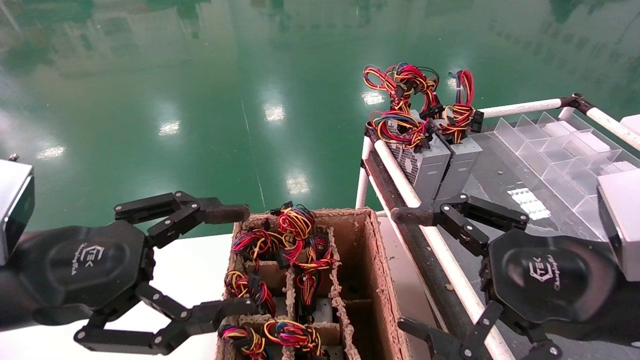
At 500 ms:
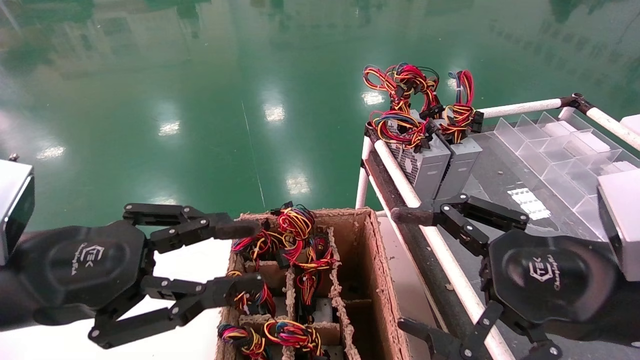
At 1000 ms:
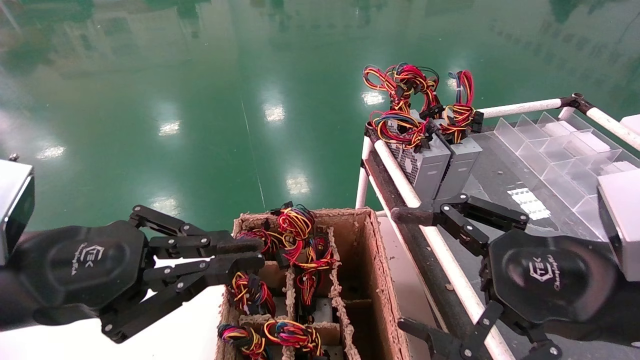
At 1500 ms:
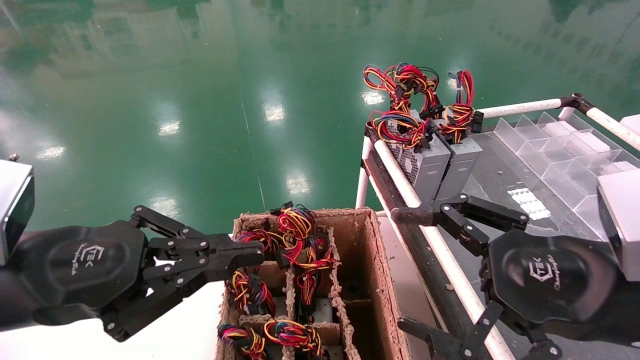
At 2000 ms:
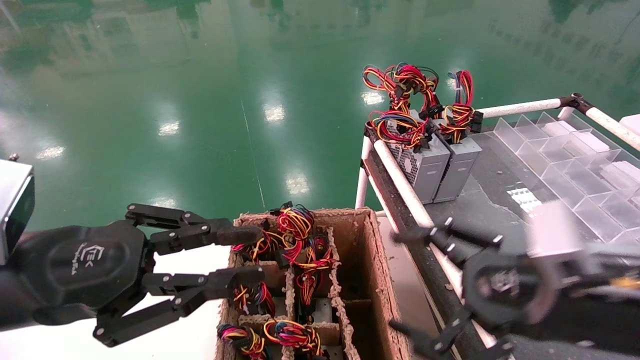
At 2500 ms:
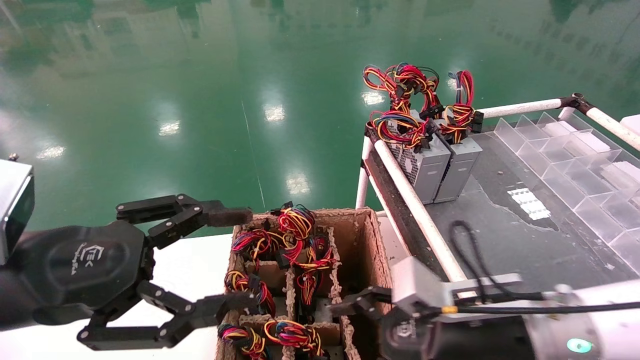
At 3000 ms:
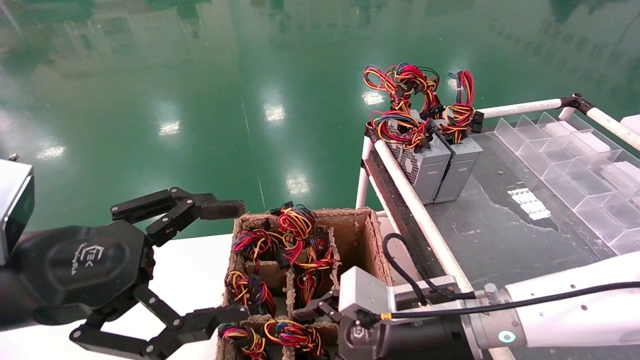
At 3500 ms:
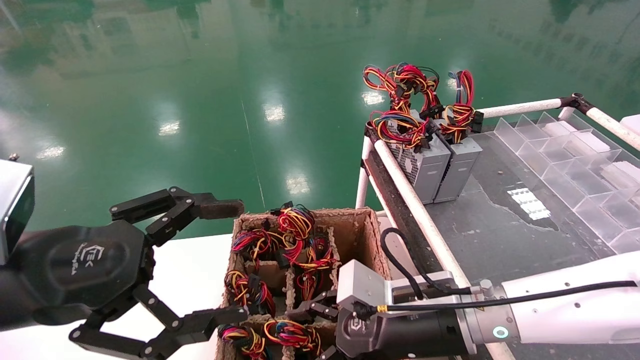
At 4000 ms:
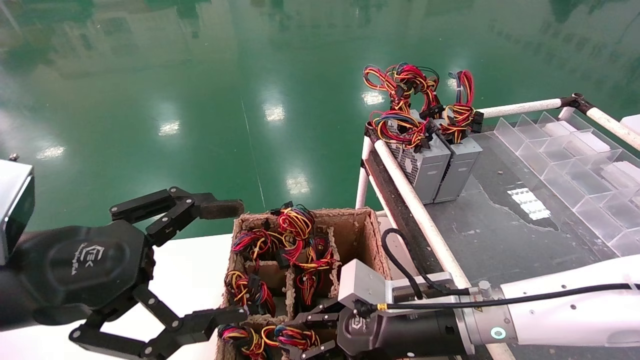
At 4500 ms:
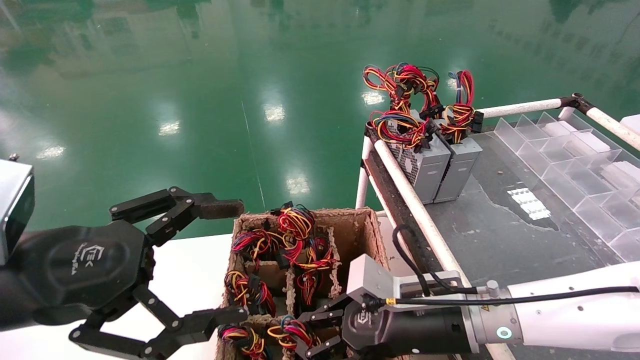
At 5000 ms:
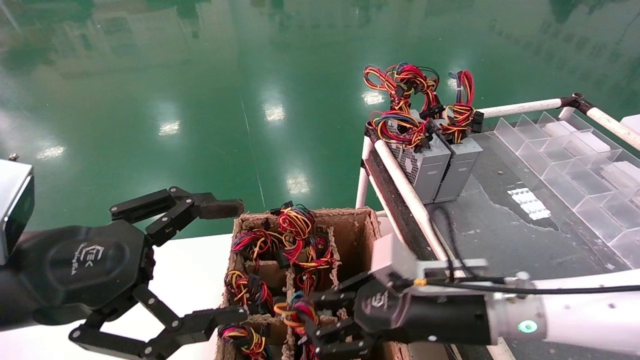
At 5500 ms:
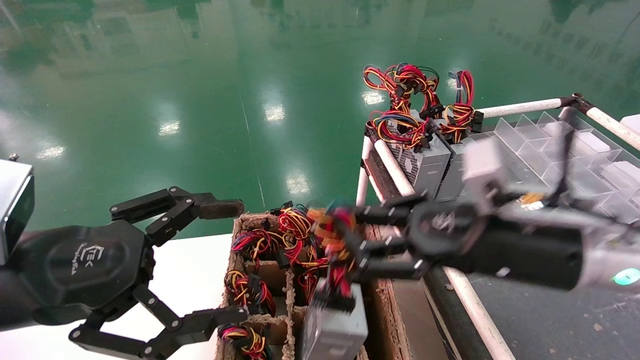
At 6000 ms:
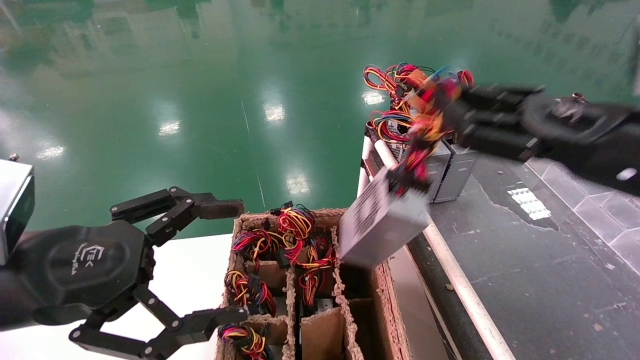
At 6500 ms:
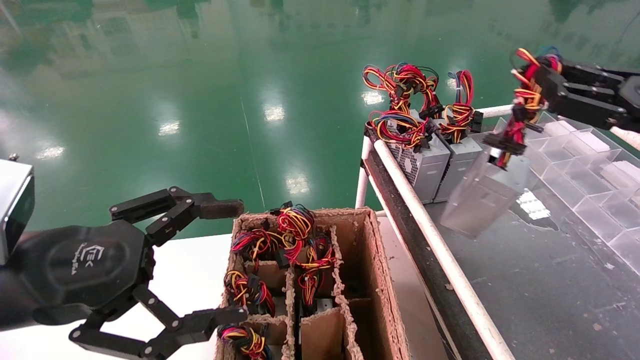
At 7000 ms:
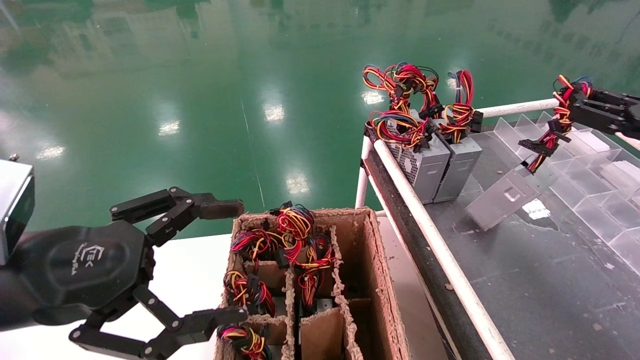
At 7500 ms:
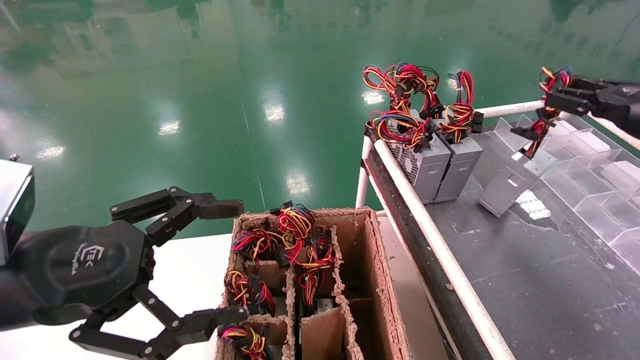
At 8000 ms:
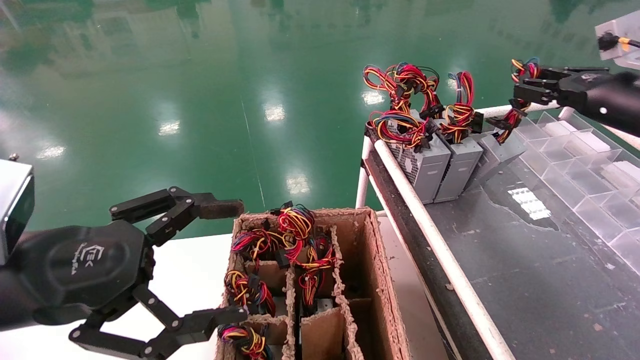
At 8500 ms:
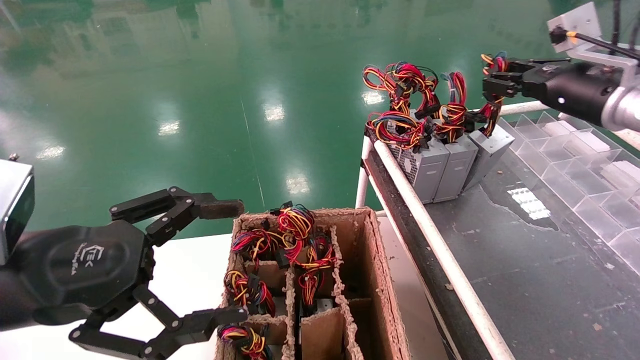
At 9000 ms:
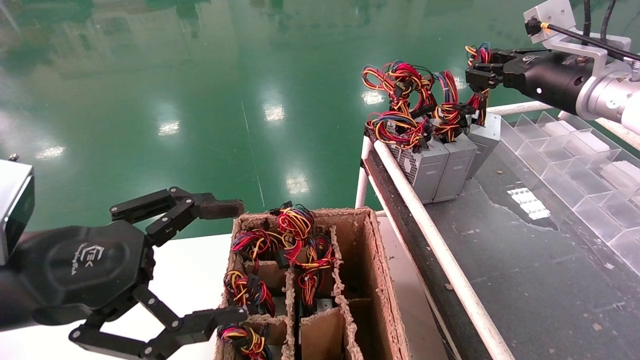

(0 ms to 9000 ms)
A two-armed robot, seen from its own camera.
Step, 1500 ms - 4000 ms: Grab and lift the power supply from the large box.
0 ms - 2000 ms: The right gripper shifts by about 5 cm. The left gripper closes its fingers.
2000 ms - 4500 ms: The right gripper travels to the left, downward and forward by about 15 cm, and closes its fingers; the left gripper opens its fingers.
4500 ms - 7000 ms: The right gripper goes some 35 cm to the right and upward.
7000 ms - 9000 ms: The right gripper moves to the left, forward and upward, about 15 cm.

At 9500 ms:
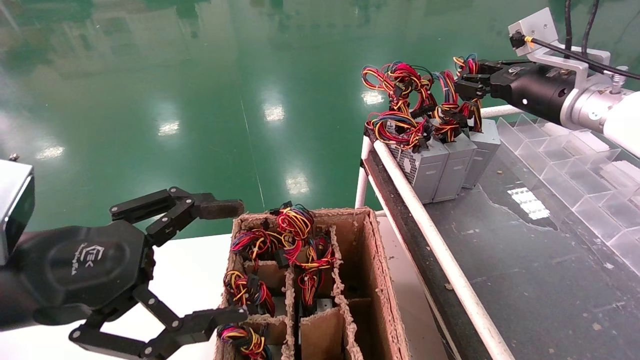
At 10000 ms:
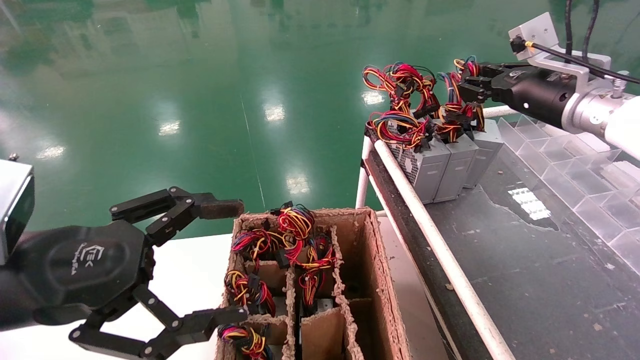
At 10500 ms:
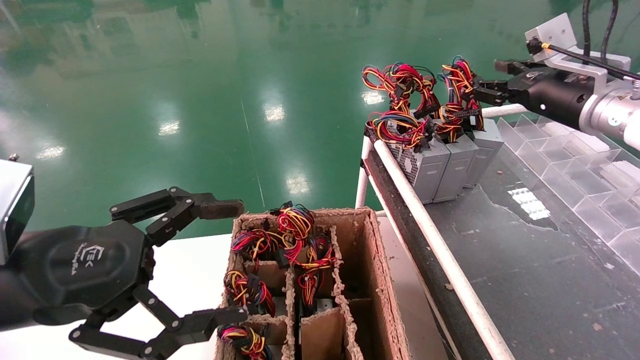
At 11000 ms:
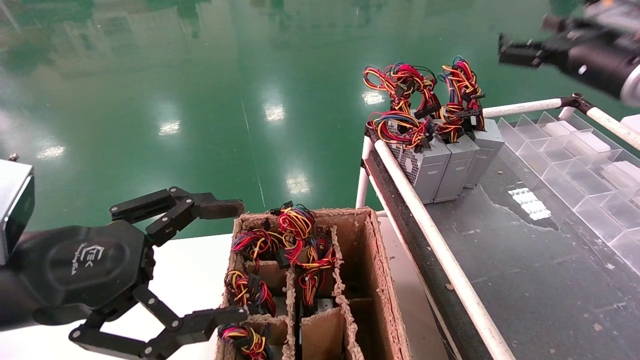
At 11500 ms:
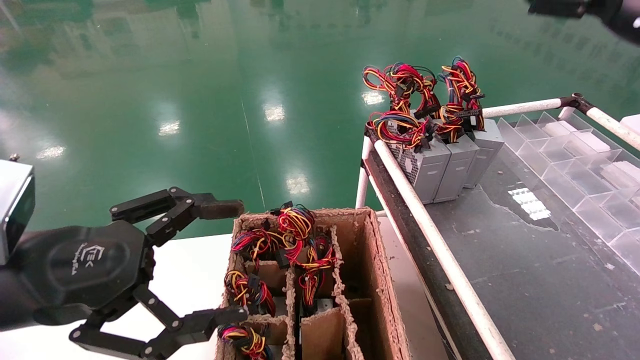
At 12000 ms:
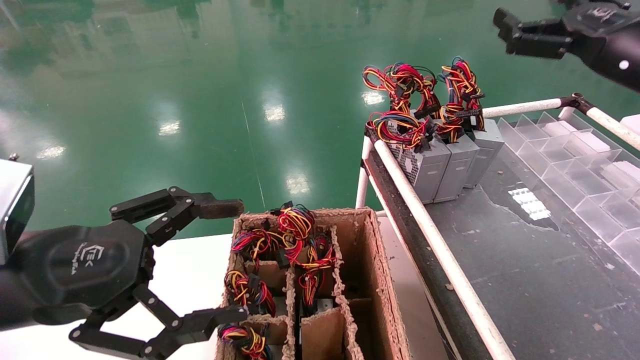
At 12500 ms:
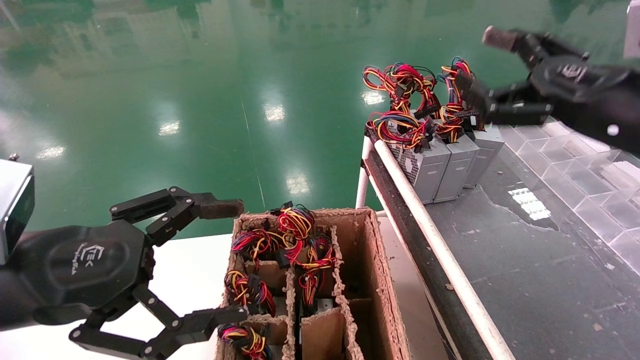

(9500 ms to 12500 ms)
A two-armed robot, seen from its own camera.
9500 ms - 11000 ms: The right gripper heads to the right, covering approximately 5 cm, and opens up.
11000 ms - 12500 ms: The right gripper heads backward, downward and to the left, covering roughly 15 cm.

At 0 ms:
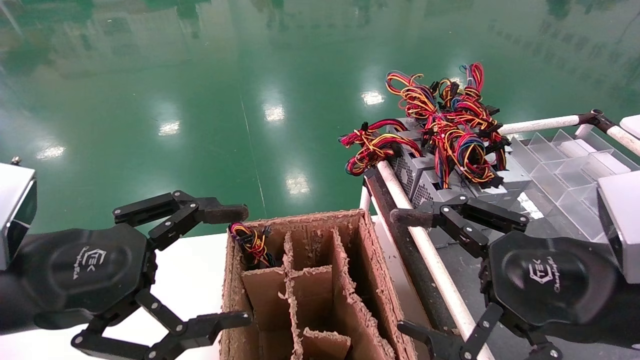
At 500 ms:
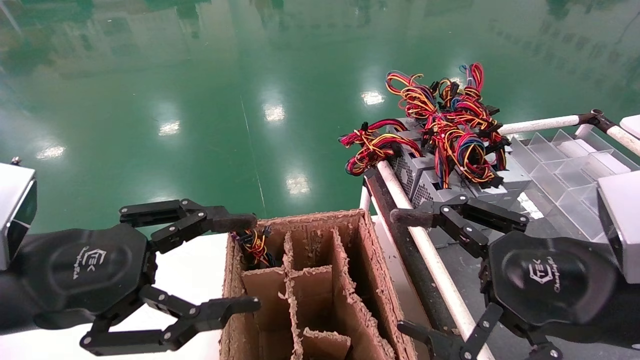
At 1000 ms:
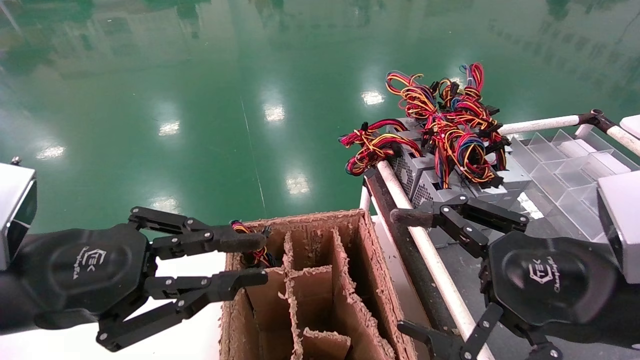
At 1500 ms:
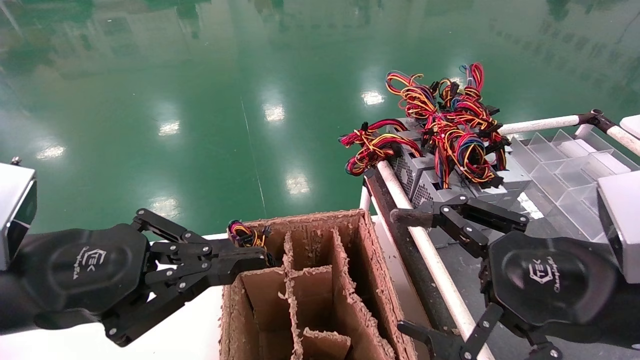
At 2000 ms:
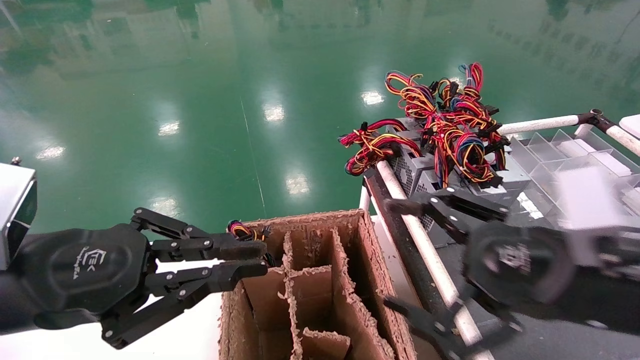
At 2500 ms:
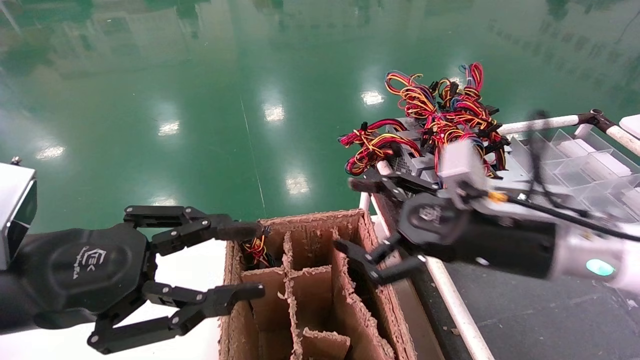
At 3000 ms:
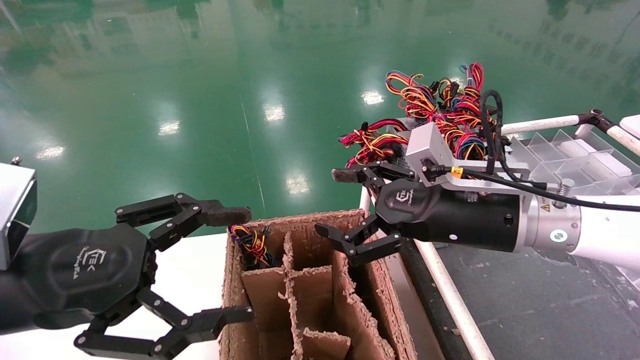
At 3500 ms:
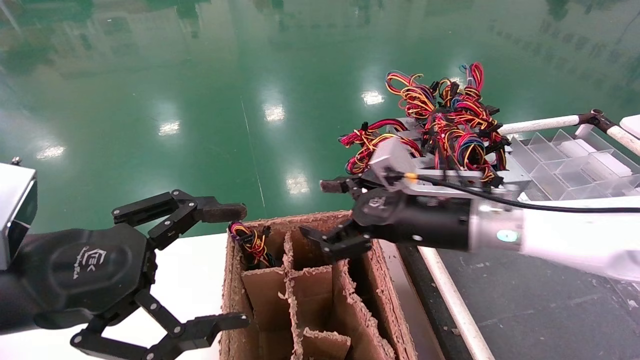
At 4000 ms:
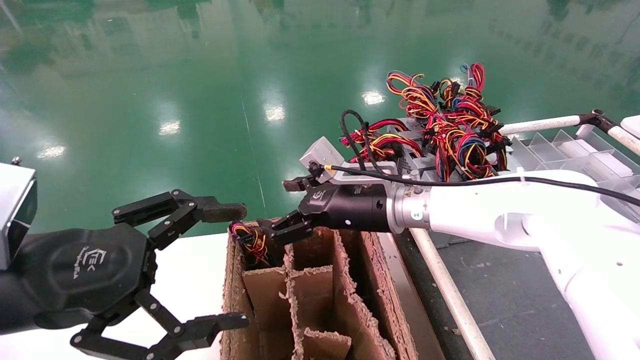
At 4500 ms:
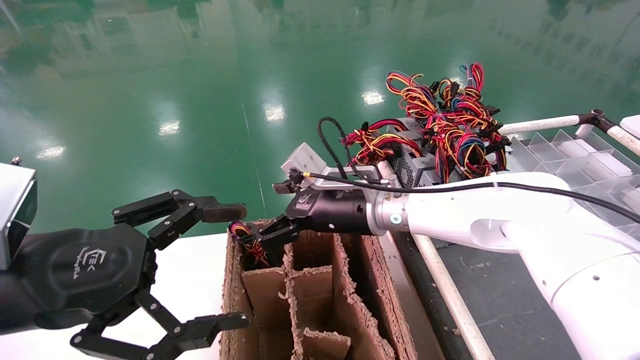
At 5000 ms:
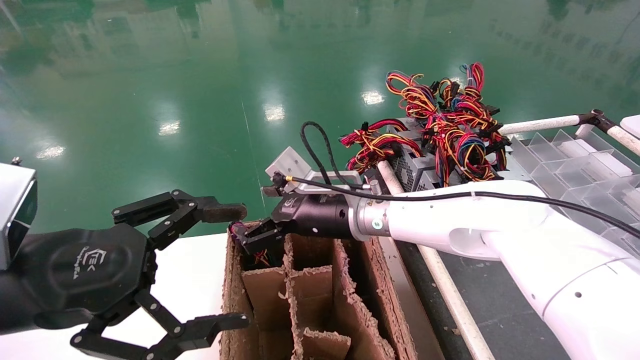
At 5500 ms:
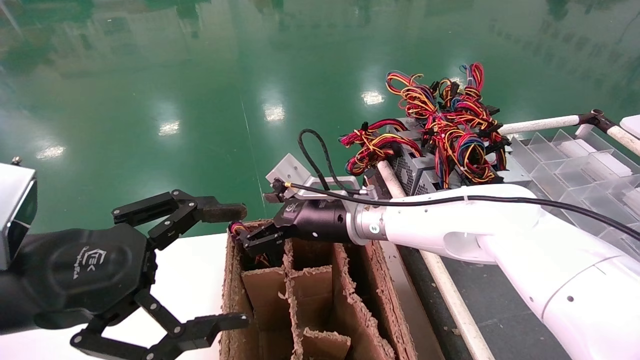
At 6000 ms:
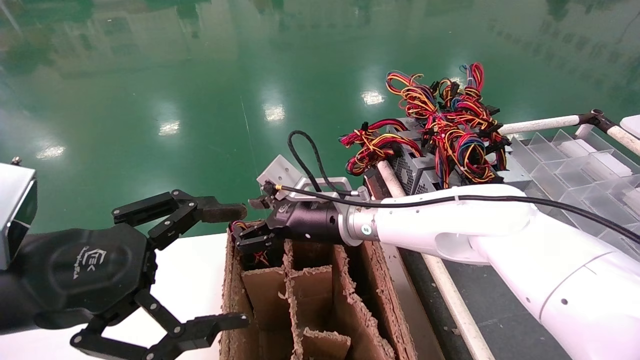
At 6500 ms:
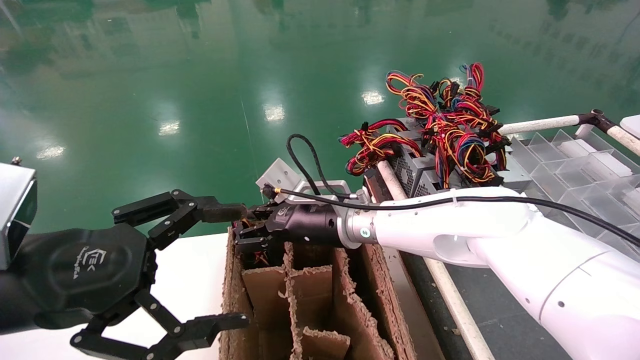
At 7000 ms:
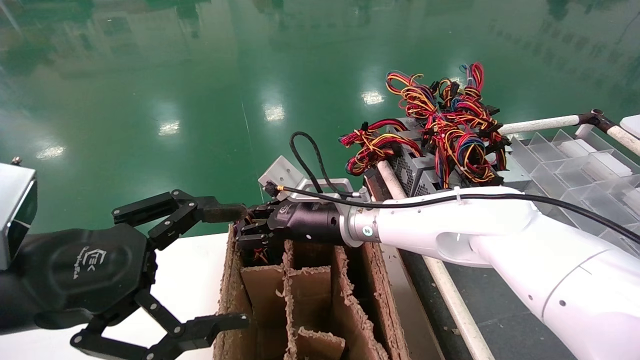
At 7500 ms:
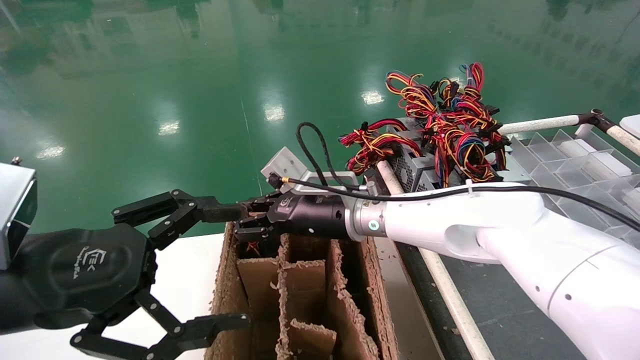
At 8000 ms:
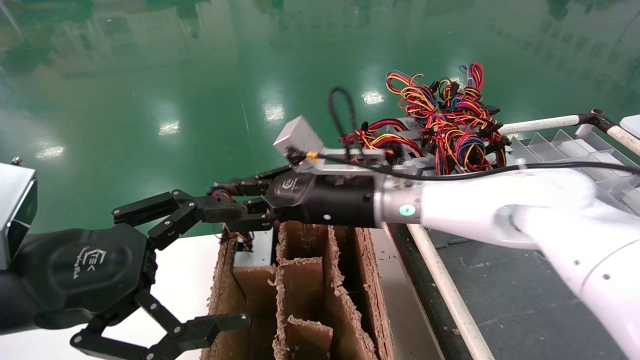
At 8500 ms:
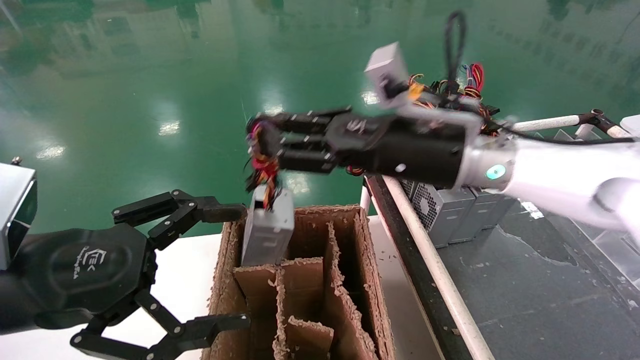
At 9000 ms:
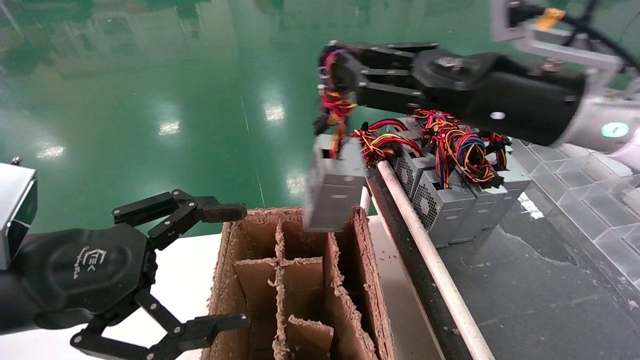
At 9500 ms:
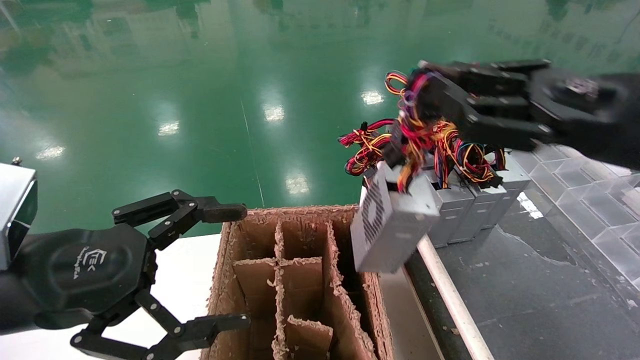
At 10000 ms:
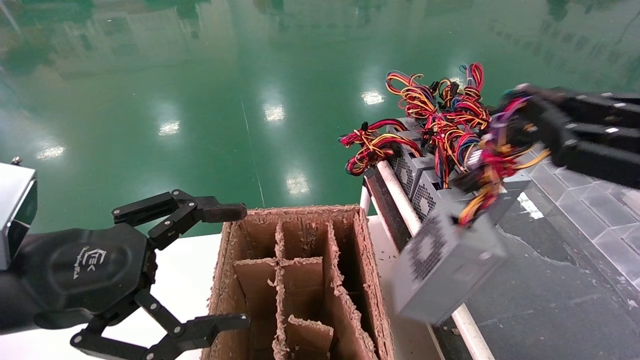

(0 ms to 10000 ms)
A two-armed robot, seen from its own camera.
Step, 2000 ms - 6500 ms: Grab and lift the power supply from the large box.
0 ms - 2000 ms: The left gripper closes its fingers.
2000 ms - 4000 ms: The right gripper moves forward and to the left, roughly 25 cm; the left gripper opens up.
4000 ms - 6000 ms: The right gripper travels to the left by approximately 5 cm, and closes up.
6000 ms - 8000 ms: The right gripper goes approximately 5 cm upward, and closes its fingers.
8000 ms - 10000 ms: The right gripper goes some 35 cm to the right and backward.
